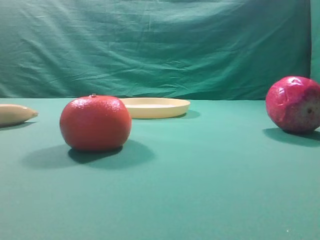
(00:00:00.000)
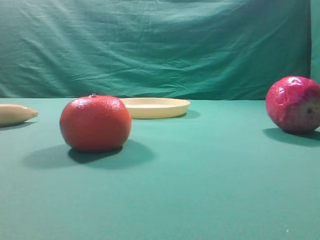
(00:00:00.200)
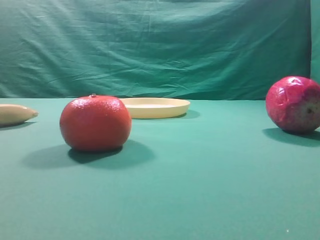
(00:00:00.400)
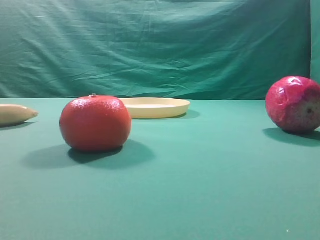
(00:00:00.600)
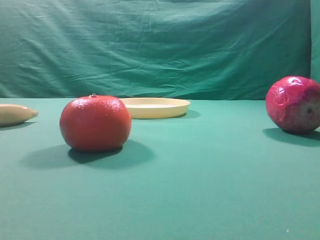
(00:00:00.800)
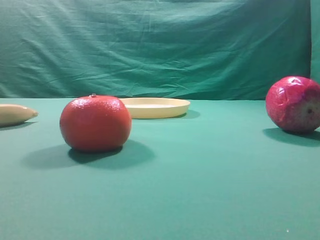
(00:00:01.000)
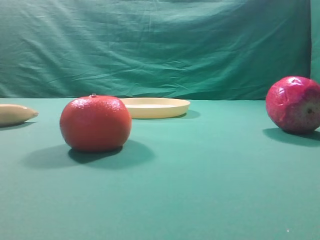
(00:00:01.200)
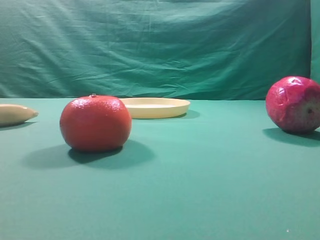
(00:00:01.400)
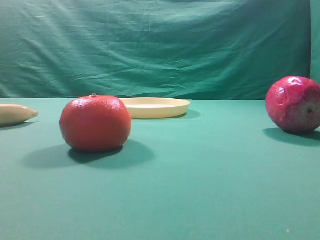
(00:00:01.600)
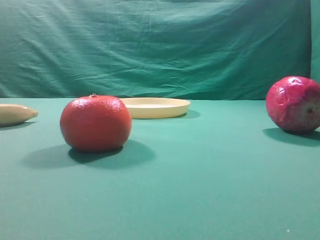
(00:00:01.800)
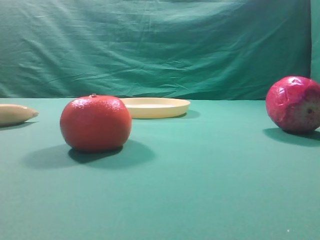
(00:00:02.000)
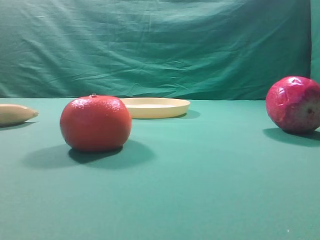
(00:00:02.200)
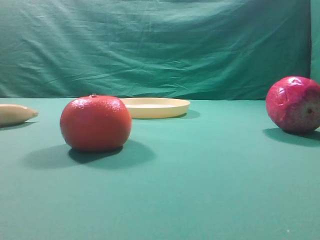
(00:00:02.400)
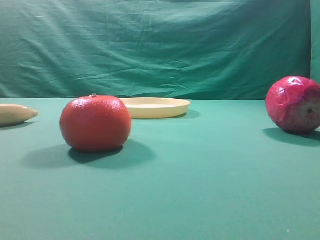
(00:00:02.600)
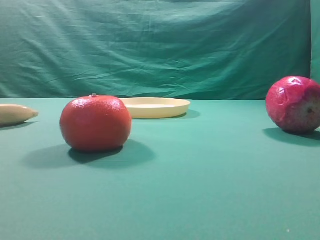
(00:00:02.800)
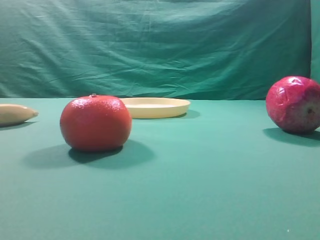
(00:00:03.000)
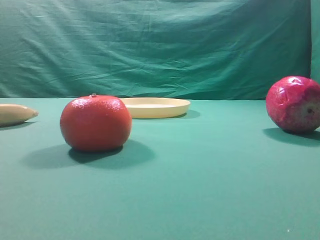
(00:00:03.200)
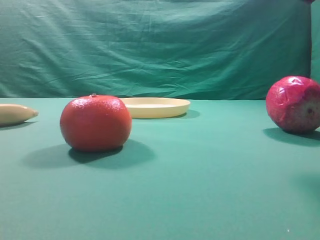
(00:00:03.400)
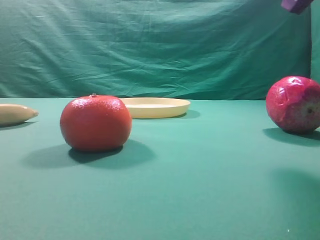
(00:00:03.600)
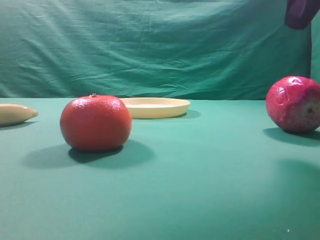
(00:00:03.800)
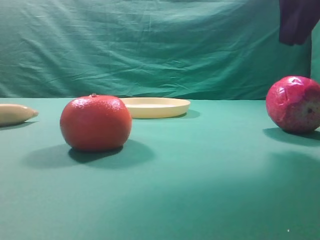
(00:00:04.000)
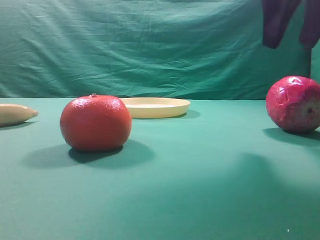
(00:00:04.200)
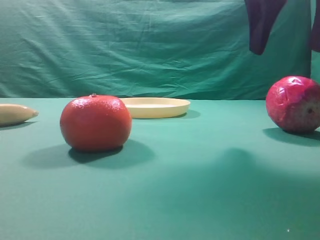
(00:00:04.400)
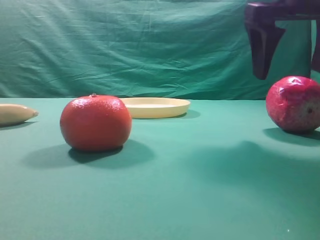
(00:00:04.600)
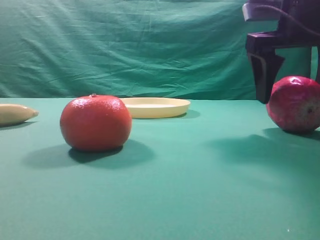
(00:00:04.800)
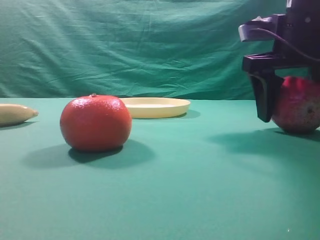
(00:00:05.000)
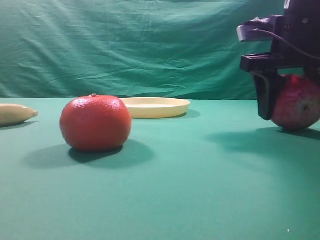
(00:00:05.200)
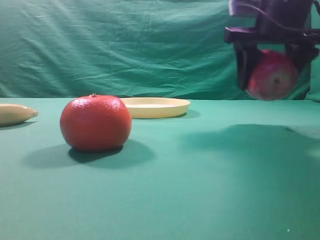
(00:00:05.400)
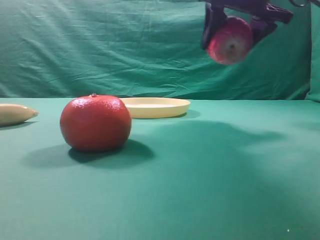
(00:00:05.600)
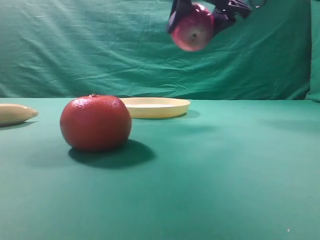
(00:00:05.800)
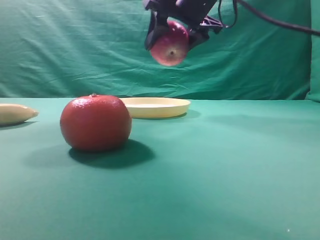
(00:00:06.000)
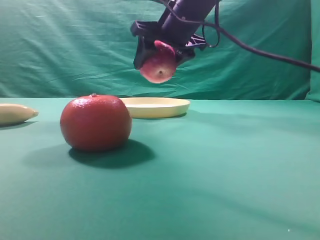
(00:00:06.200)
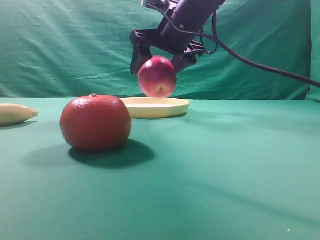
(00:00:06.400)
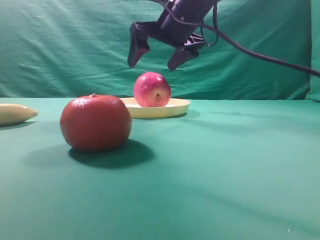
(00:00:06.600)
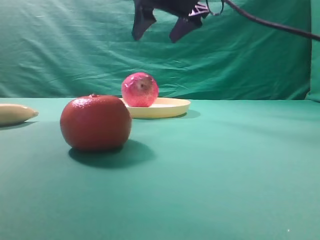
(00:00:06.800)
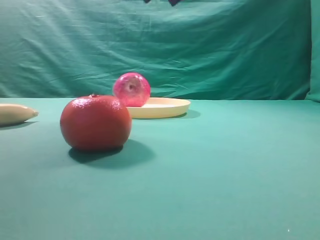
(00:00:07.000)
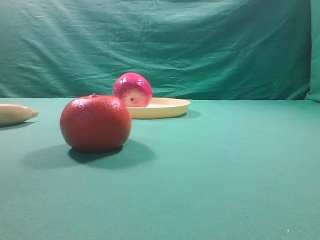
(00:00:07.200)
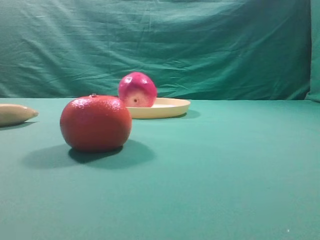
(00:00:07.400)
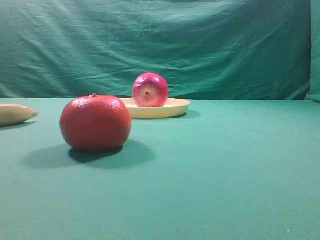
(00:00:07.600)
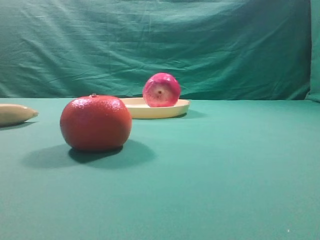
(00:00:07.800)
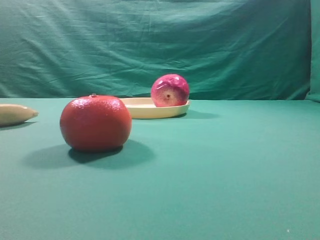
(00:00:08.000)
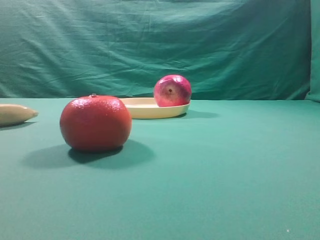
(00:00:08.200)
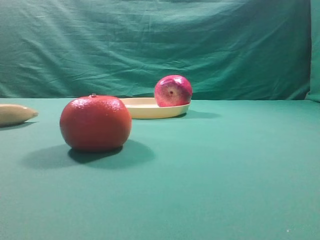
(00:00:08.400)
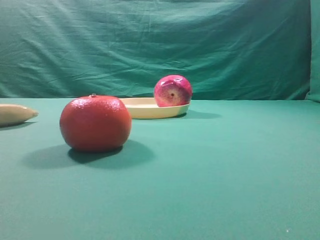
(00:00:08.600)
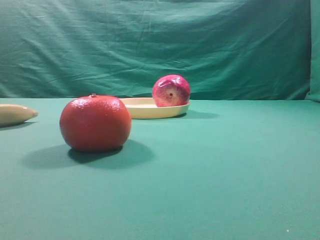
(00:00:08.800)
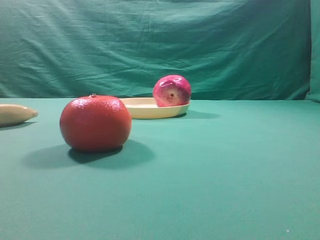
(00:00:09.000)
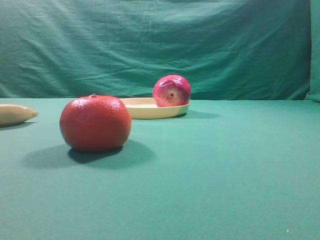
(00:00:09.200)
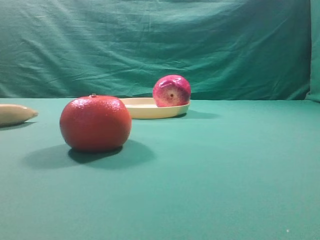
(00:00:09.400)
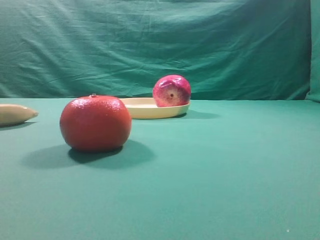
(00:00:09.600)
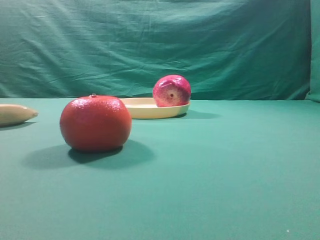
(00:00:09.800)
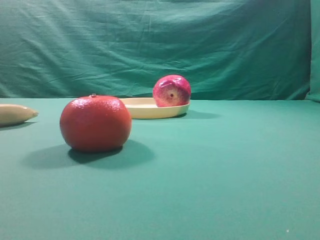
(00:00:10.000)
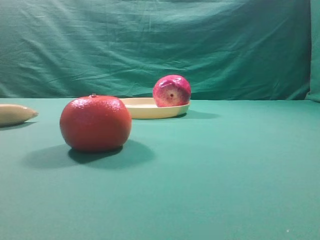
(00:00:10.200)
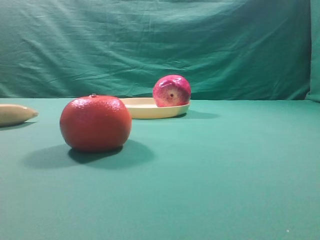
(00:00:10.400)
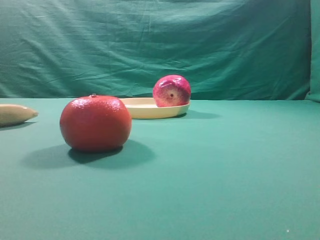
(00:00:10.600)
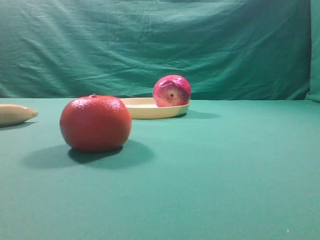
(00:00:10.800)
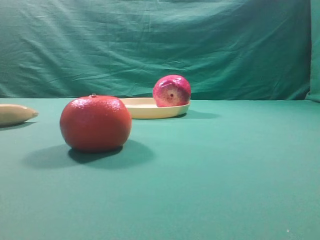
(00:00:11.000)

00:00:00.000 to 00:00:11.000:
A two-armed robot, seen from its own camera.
Task of the whole recording: grasp the apple and place it into the yellow plate.
Step, 00:00:00.000 to 00:00:05.200: Grasp the fruit that can keep the doctor away.
Step, 00:00:05.400 to 00:00:06.800: Place the picked object into the yellow plate.
